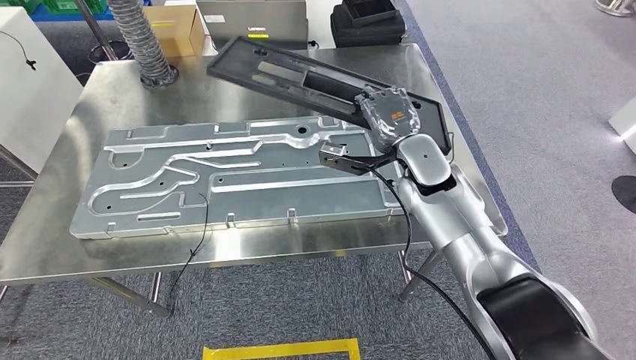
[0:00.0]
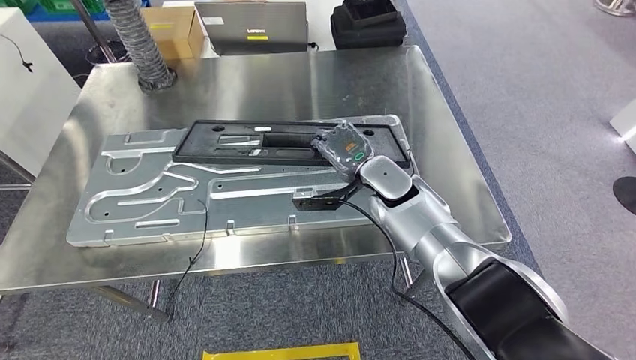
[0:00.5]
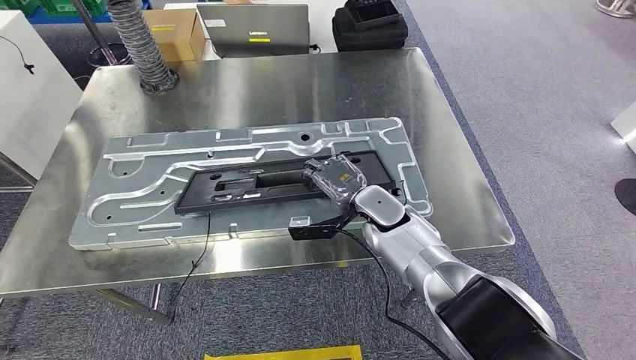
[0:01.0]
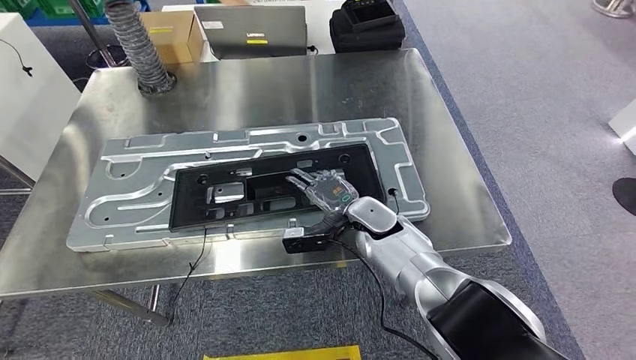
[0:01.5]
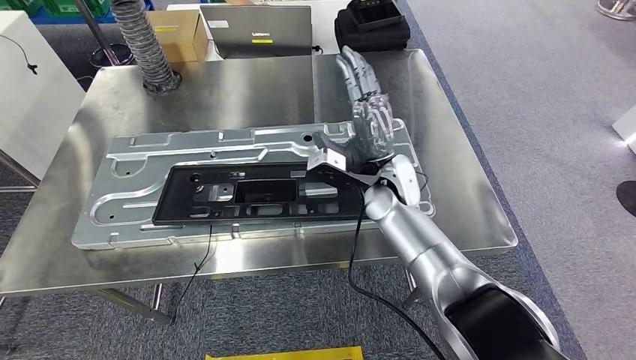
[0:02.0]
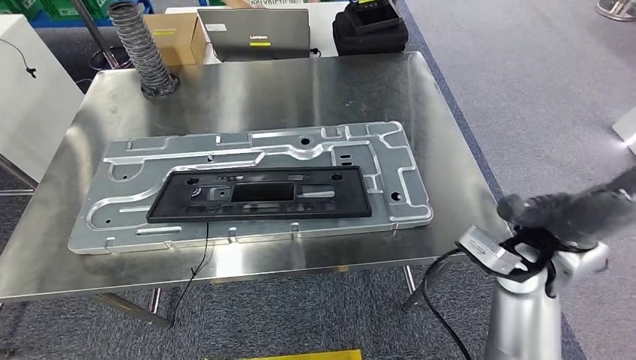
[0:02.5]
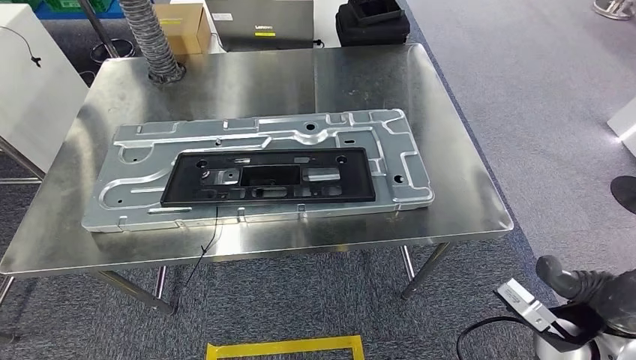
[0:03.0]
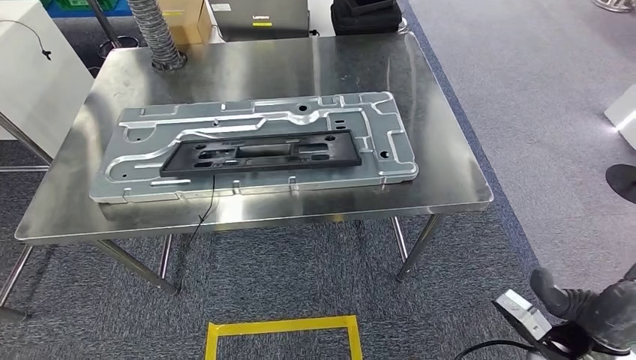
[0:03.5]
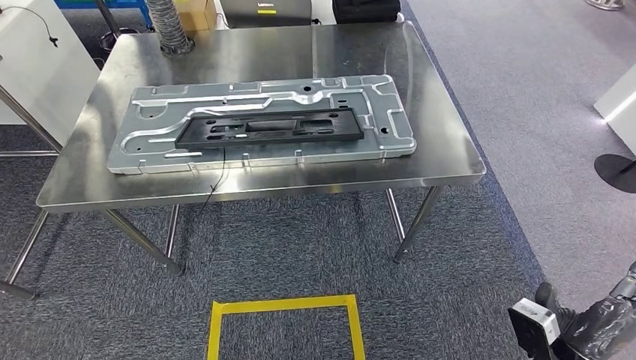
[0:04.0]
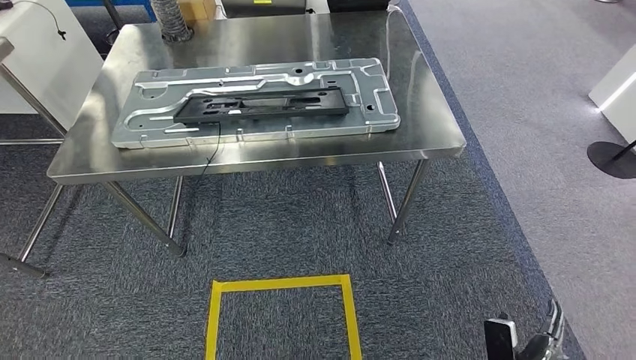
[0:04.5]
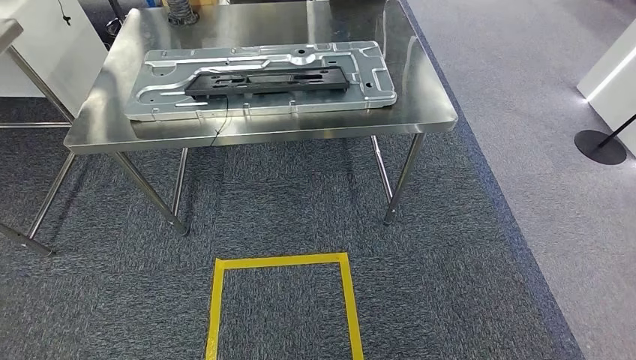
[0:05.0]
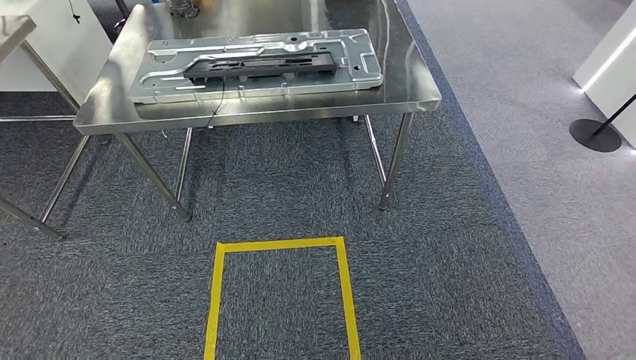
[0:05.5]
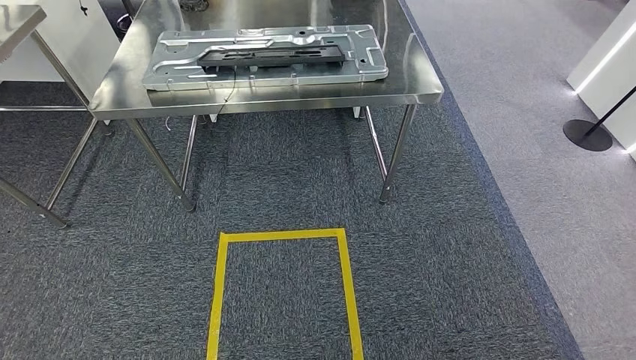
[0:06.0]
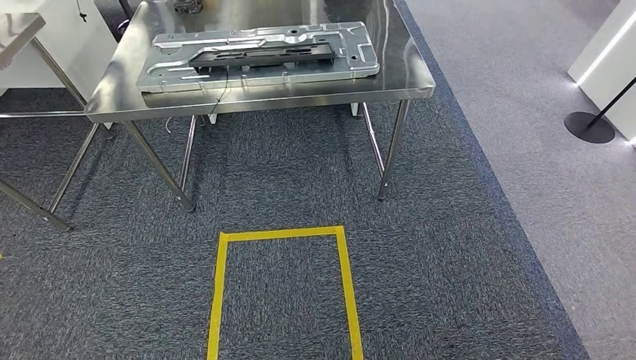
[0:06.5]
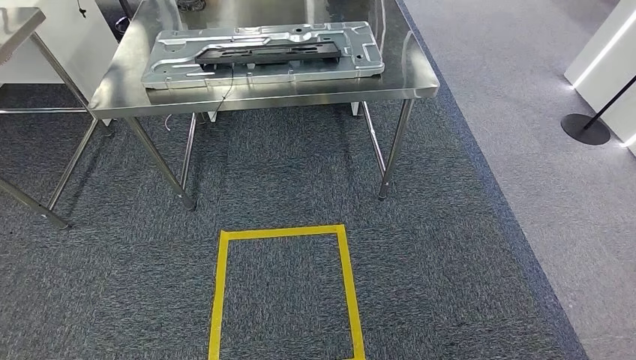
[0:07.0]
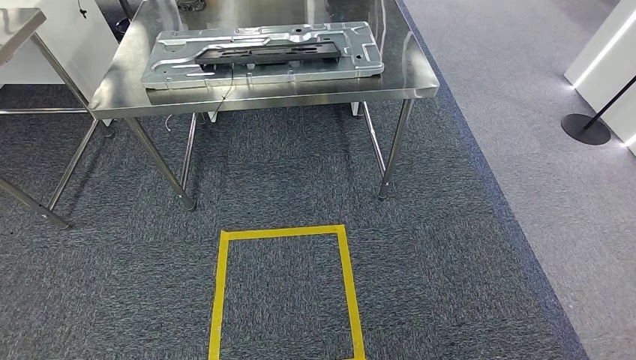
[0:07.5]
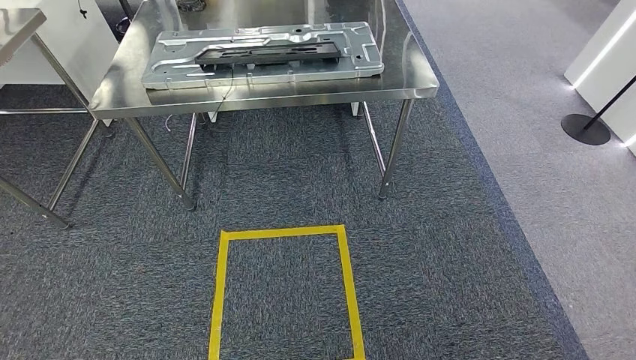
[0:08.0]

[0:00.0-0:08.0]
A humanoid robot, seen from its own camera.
Step, 0:01.0 to 0:02.5: Insert the large parts into the corresponding slots on the workbench.
Step, 0:03.0 to 0:08.0: Return to the initial position at the shelf.

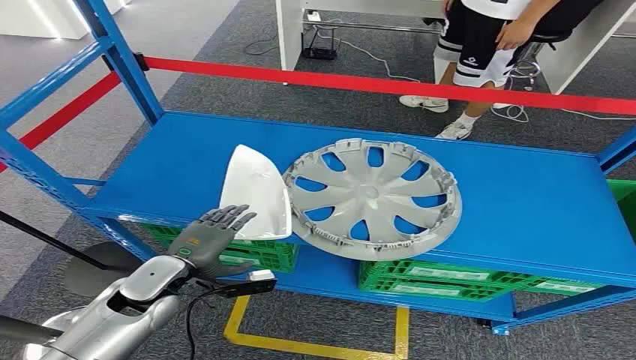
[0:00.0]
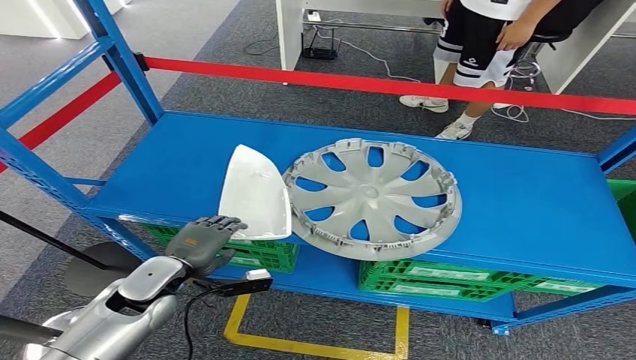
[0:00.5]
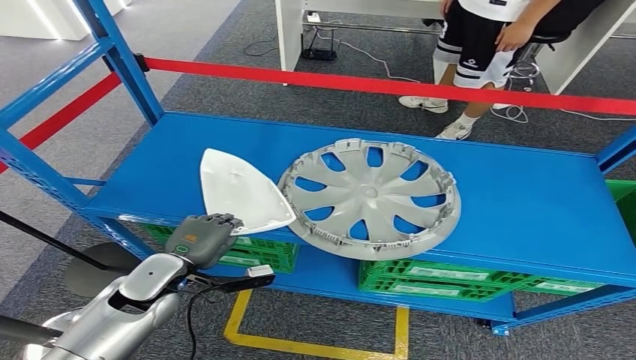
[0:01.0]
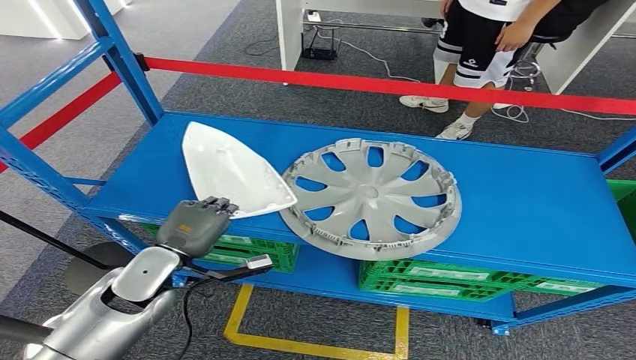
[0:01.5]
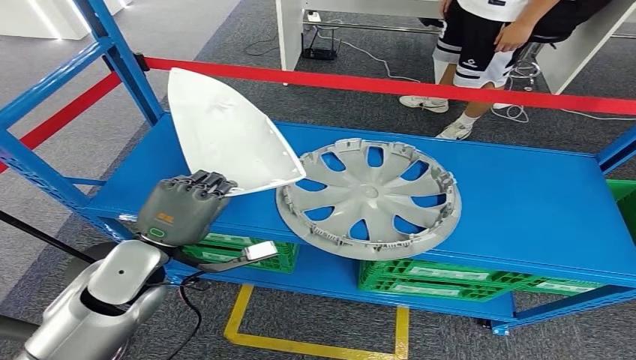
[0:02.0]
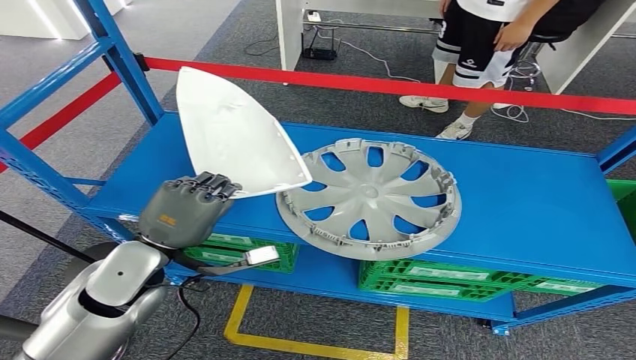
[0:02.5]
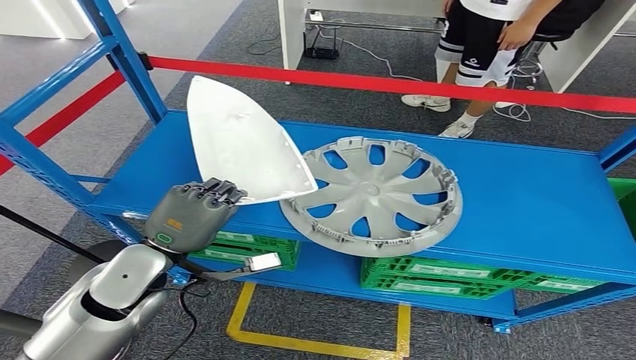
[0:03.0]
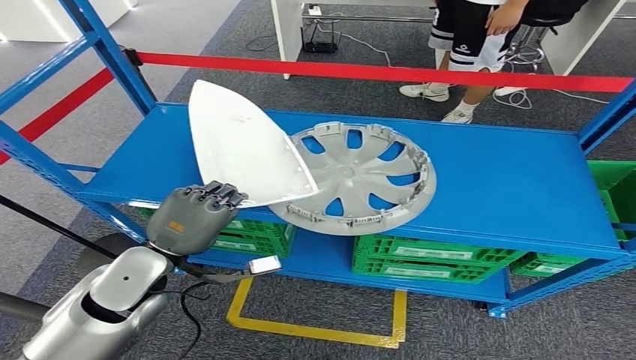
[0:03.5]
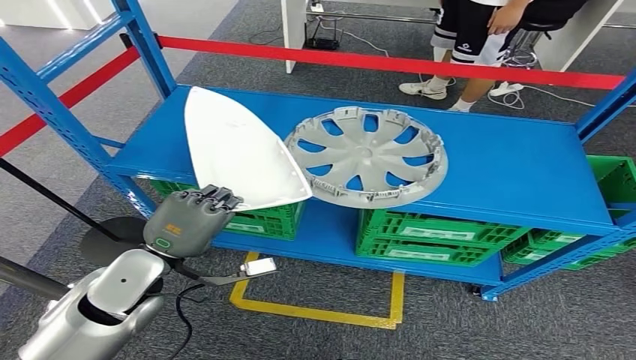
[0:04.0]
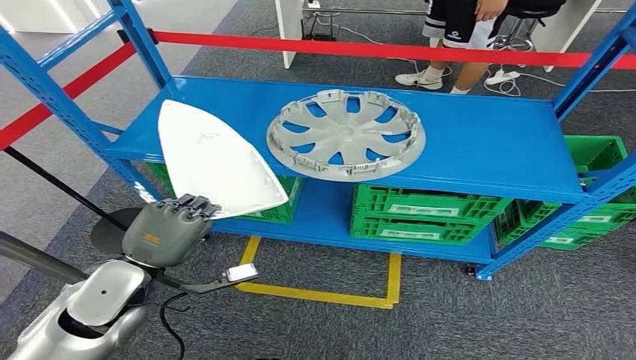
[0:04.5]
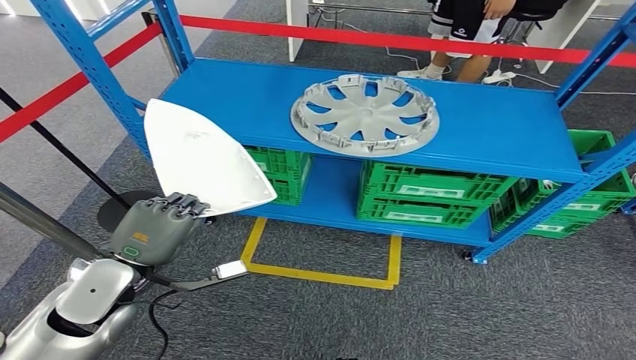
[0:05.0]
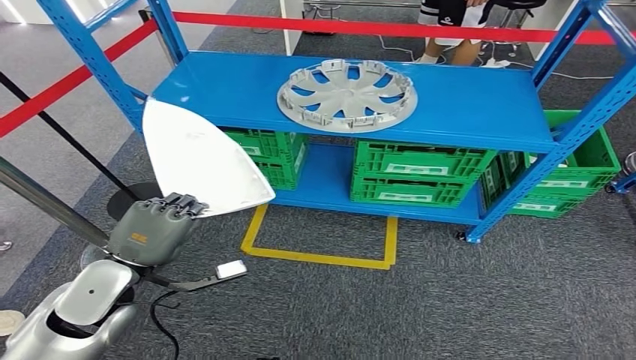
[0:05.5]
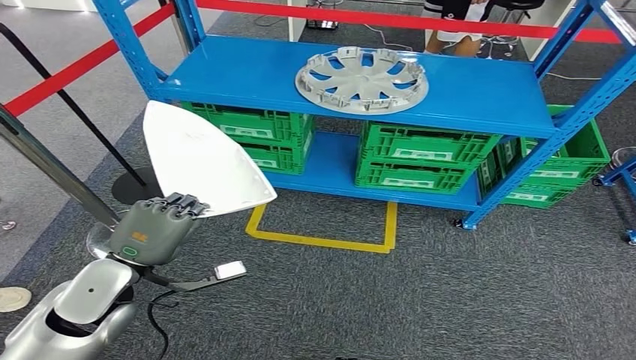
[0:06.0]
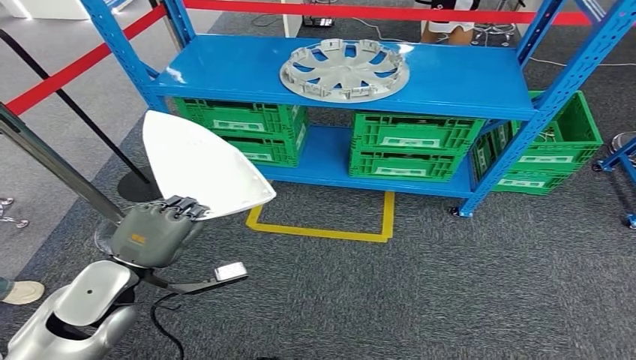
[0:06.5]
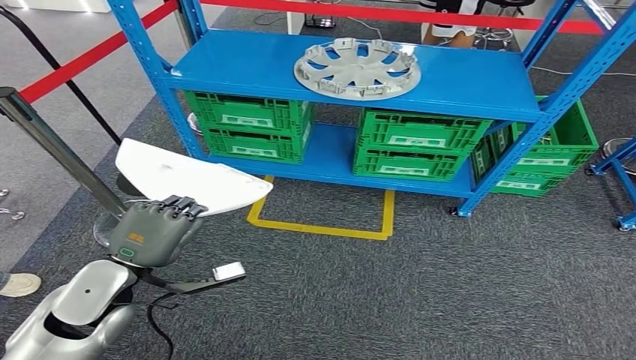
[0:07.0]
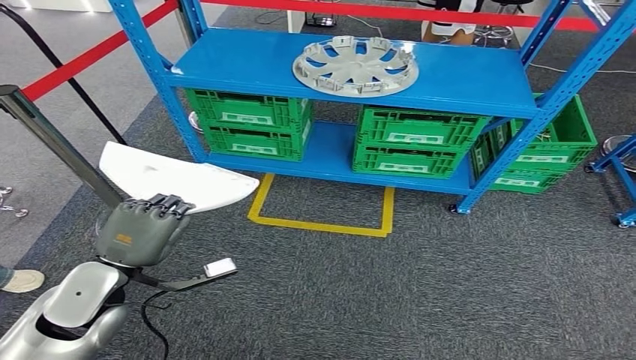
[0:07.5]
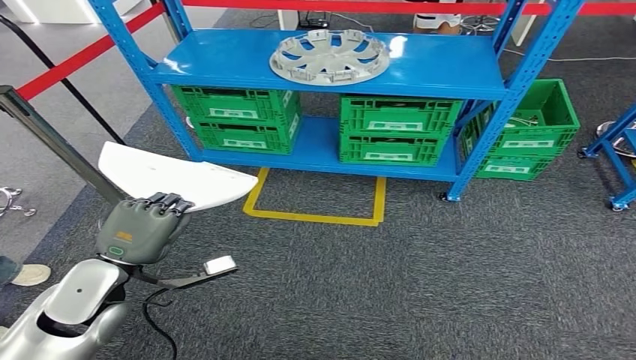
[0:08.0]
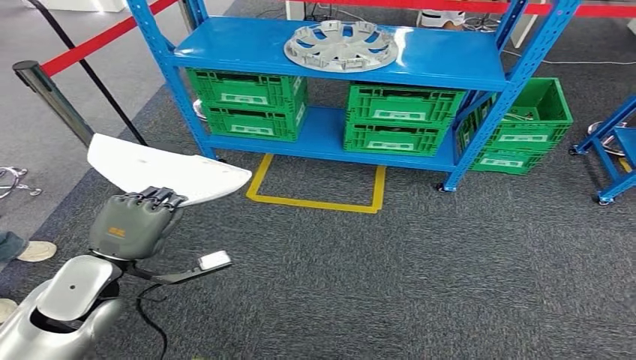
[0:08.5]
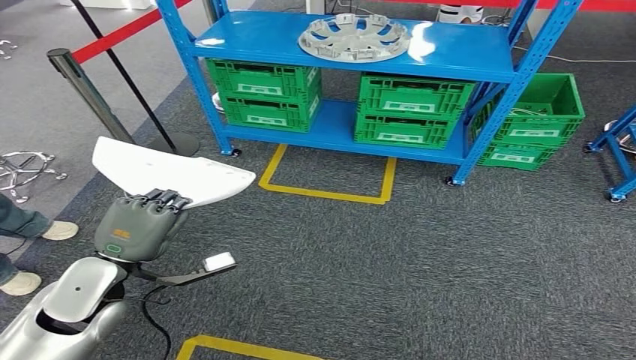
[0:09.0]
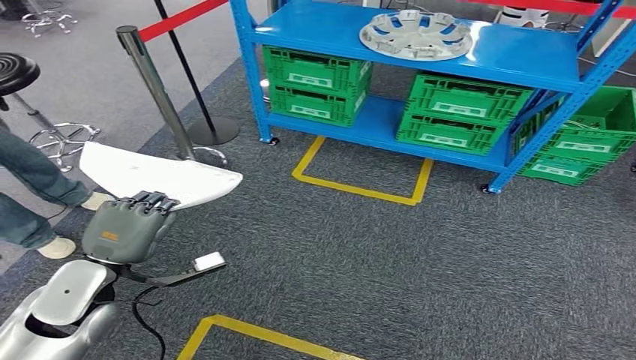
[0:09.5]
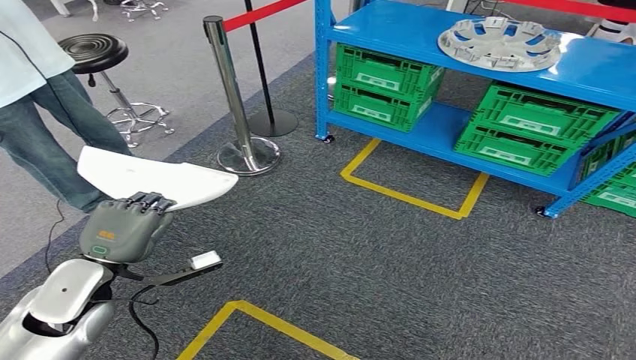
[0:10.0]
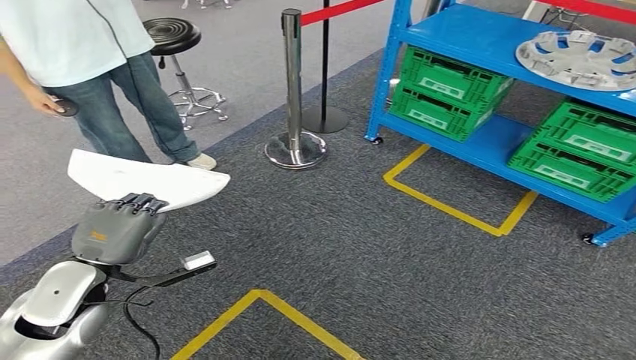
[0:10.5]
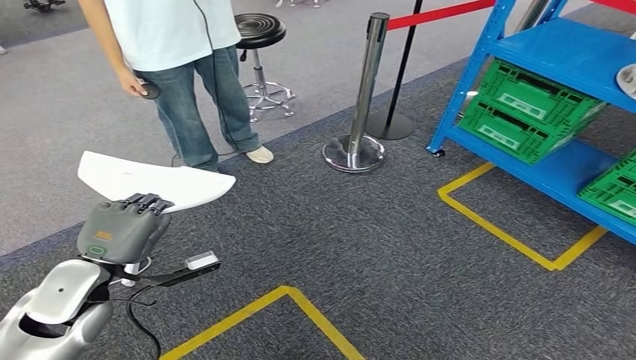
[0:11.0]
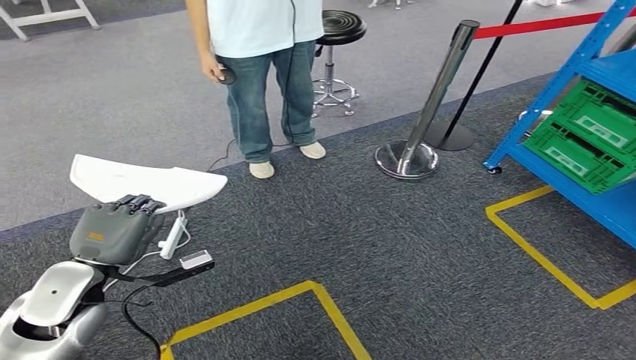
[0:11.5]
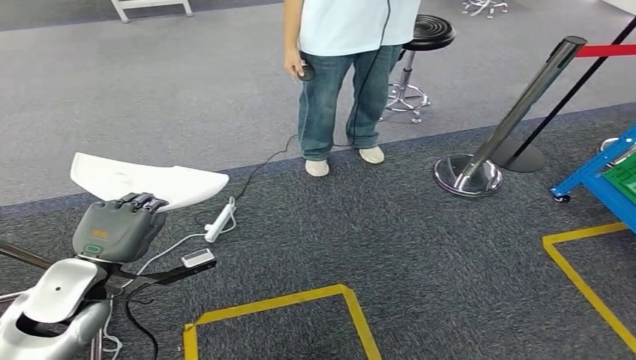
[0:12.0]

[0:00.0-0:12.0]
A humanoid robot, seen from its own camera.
Step, 0:00.0 to 0:03.0: Pick up the small parts from the shelf.
